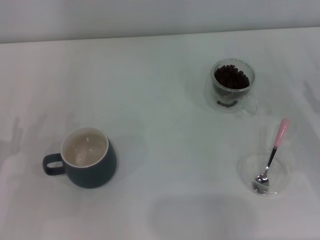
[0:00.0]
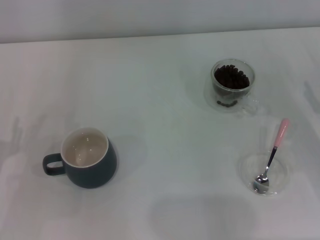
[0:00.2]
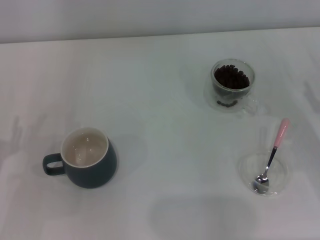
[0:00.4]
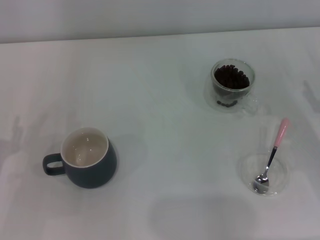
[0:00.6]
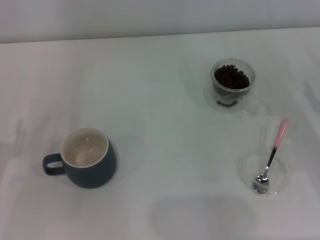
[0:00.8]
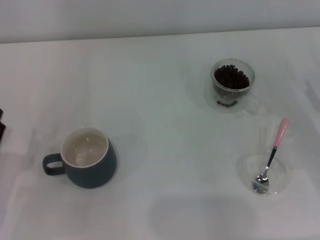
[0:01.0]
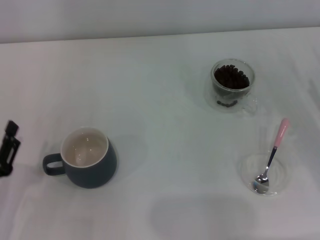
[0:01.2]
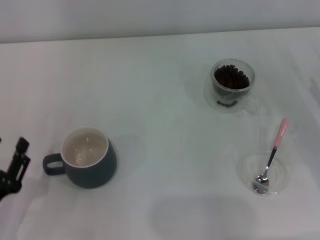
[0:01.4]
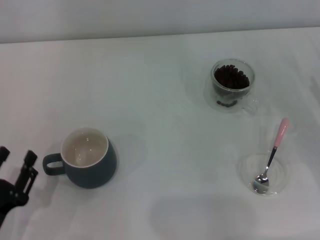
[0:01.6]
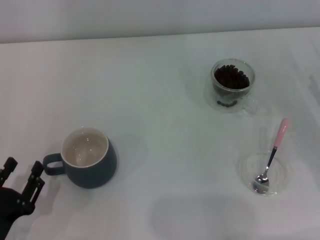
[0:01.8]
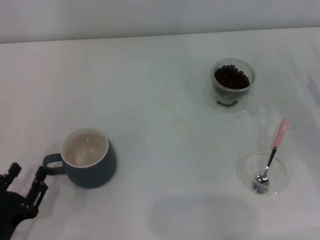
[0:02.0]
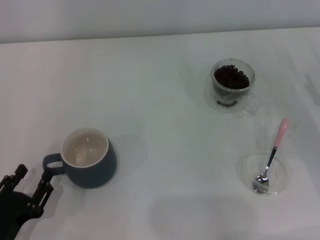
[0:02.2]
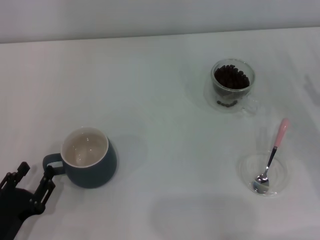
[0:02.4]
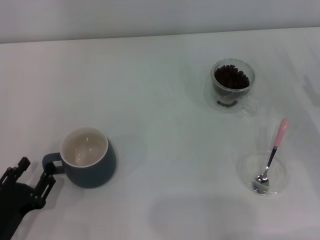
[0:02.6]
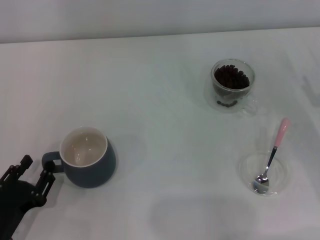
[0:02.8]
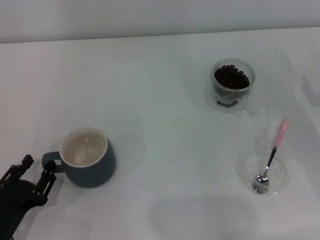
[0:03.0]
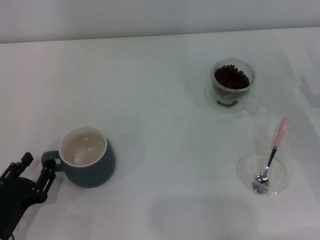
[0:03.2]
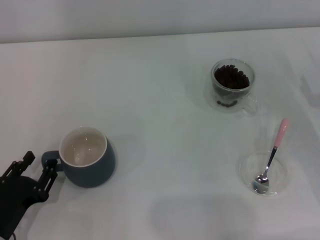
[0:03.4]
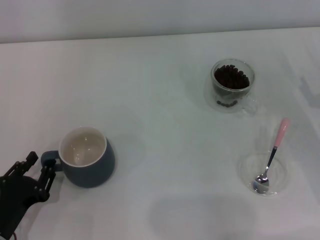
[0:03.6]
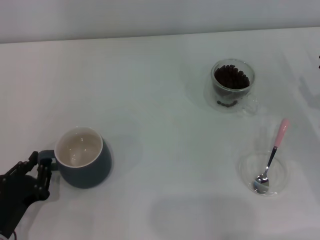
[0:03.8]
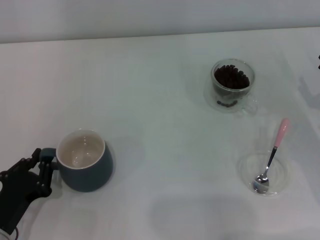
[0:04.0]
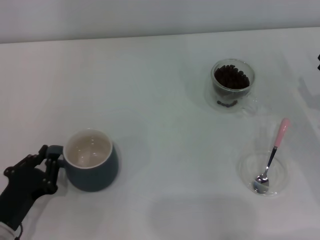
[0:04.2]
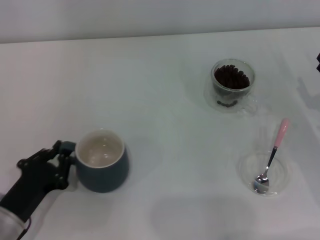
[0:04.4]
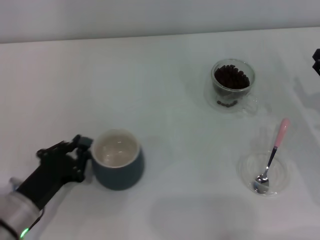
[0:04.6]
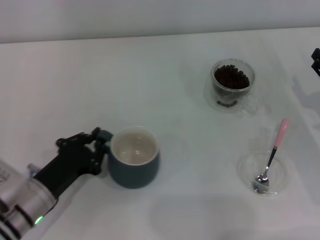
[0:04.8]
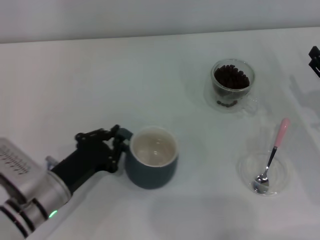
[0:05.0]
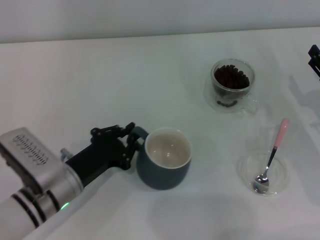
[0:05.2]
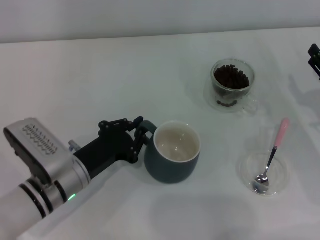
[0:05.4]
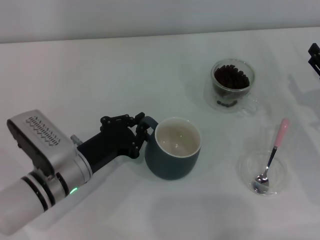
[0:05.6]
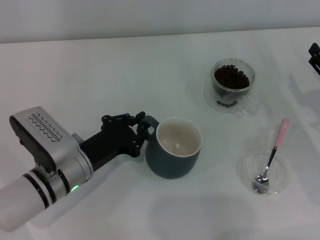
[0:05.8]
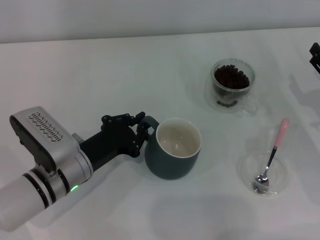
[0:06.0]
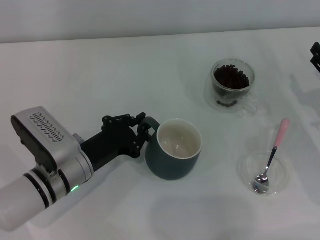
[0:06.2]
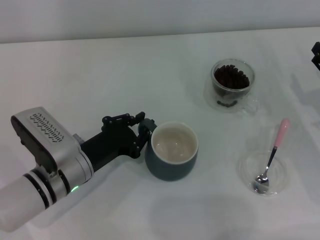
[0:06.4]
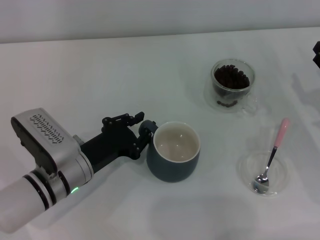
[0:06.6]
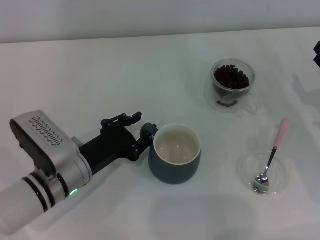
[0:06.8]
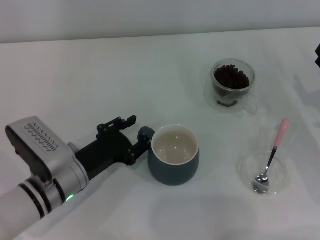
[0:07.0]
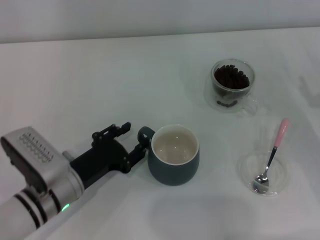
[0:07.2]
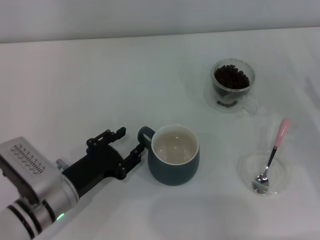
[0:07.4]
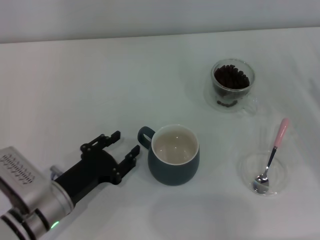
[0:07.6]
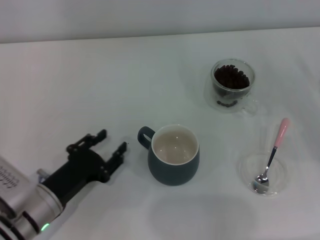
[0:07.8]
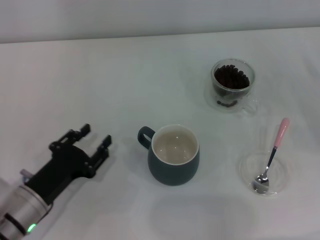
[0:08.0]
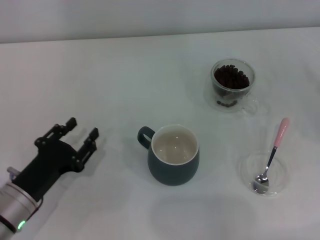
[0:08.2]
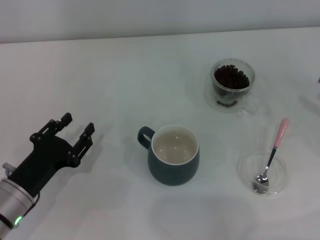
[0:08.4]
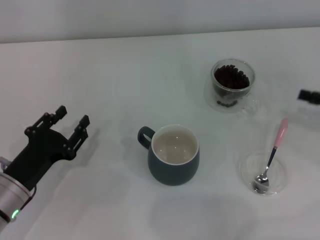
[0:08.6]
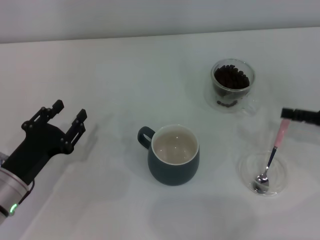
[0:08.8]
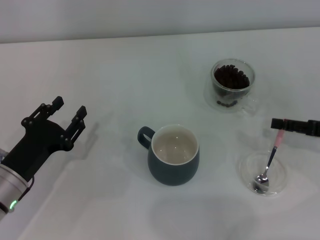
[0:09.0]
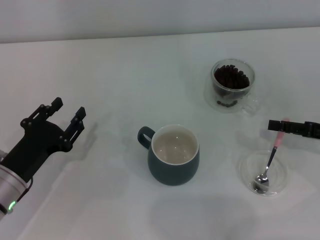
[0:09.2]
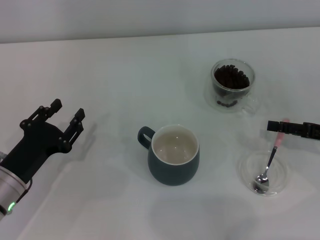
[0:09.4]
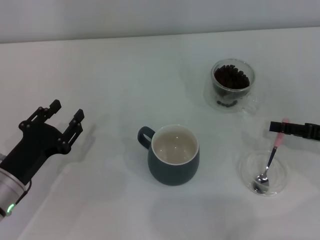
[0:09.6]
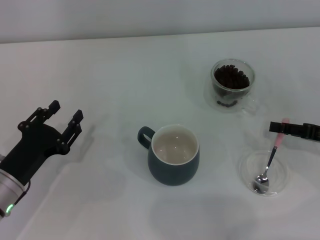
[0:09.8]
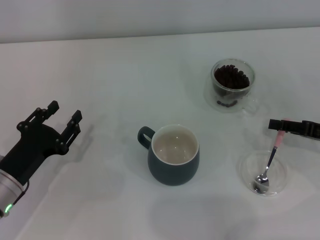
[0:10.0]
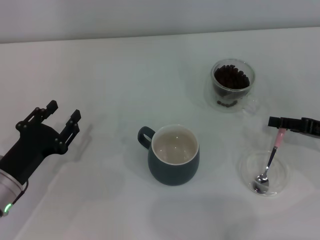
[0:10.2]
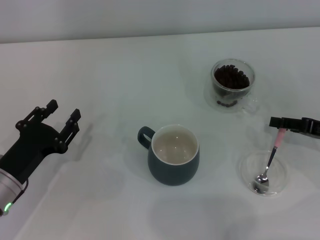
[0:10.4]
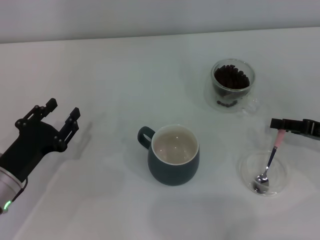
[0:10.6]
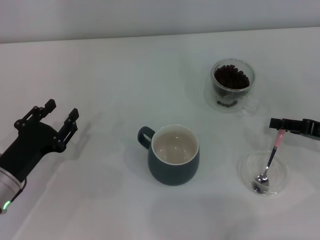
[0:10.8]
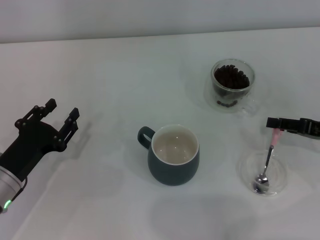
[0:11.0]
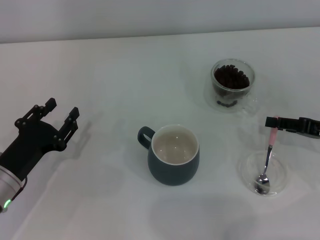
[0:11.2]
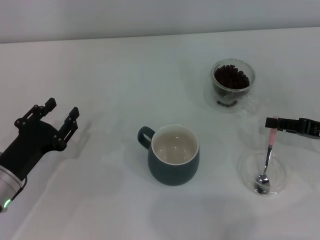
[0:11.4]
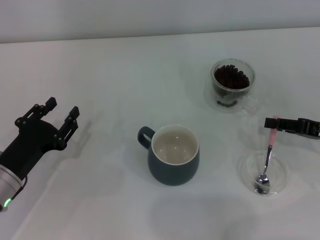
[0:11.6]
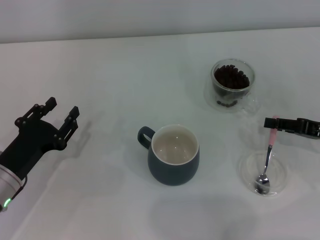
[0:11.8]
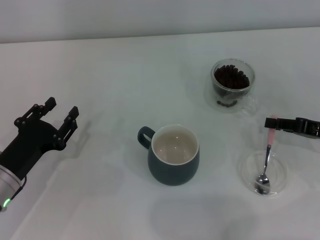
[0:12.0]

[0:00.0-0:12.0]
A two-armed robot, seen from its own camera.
Task of the whole recording: Use a pink spoon to take out the coffee beans from the glass and pour them into the gray cup.
Step, 0:00.0 to 0:07.6: Move the cup to the center of view with the left gripper.
0:00.0 to 0:01.6: The left gripper shifts approximately 10 cm backward.
0:01.6 to 0:03.0: The grippers move only a little.
0:03.0 to 0:04.4: The left gripper closes.
0:04.4 to 0:06.0: The left gripper is displaced to the right and forward by approximately 15 cm.
0:06.0 to 0:07.6: The left gripper moves about 5 cm, and opens up.
0:07.6 to 0:09.0: The left gripper heads to the left, covering some 5 cm.
0:10.4 to 0:12.0: The two grippers keep their place.

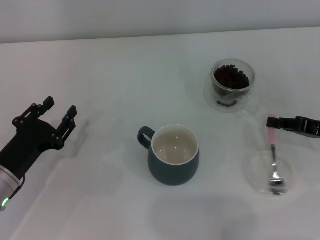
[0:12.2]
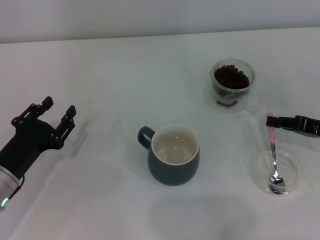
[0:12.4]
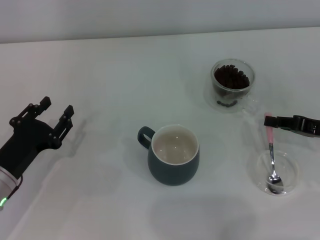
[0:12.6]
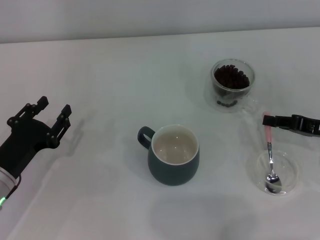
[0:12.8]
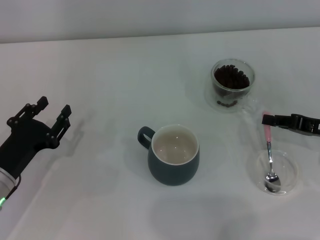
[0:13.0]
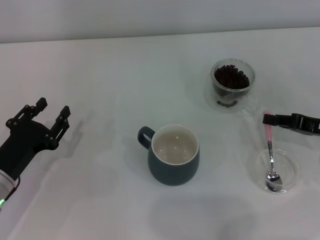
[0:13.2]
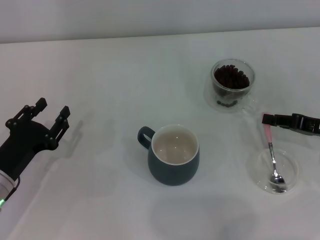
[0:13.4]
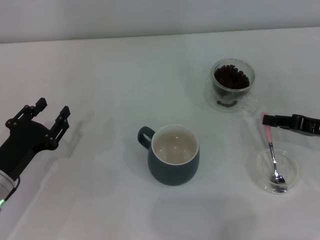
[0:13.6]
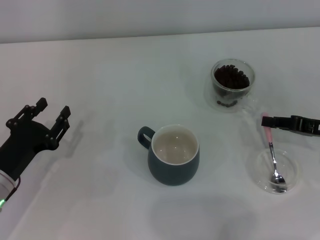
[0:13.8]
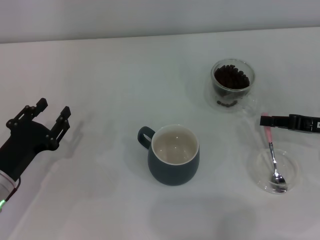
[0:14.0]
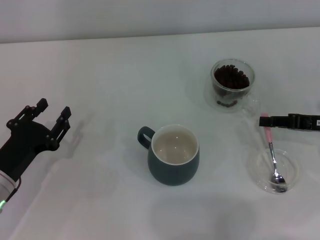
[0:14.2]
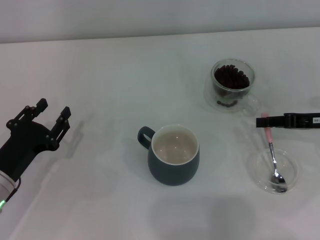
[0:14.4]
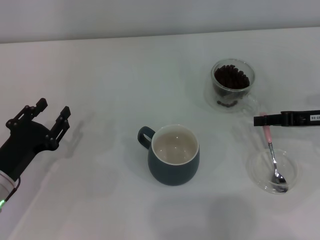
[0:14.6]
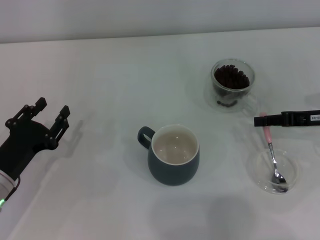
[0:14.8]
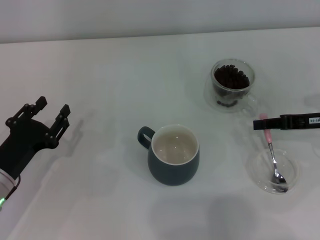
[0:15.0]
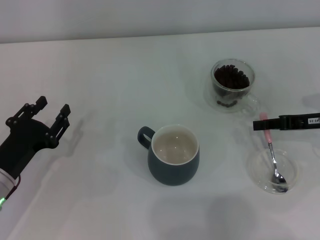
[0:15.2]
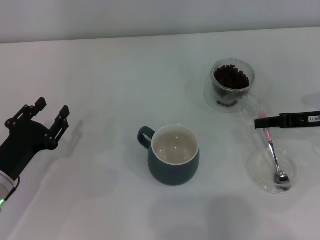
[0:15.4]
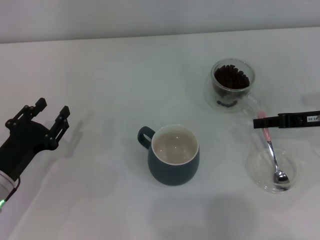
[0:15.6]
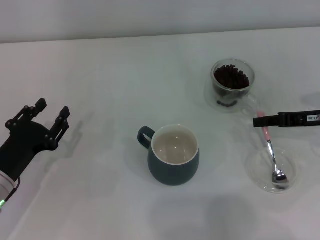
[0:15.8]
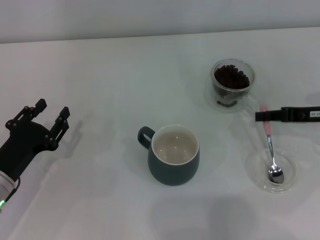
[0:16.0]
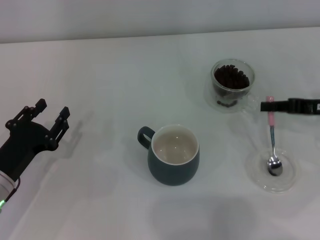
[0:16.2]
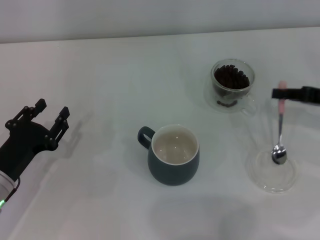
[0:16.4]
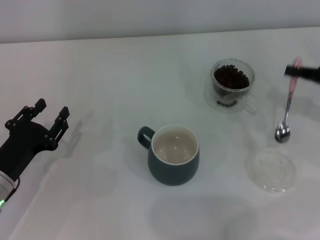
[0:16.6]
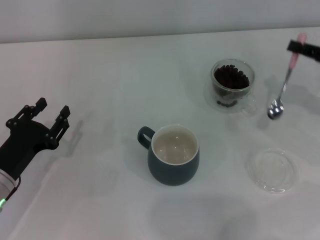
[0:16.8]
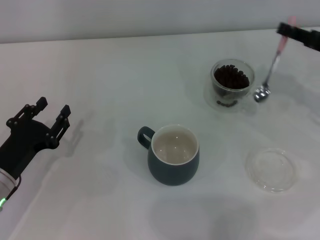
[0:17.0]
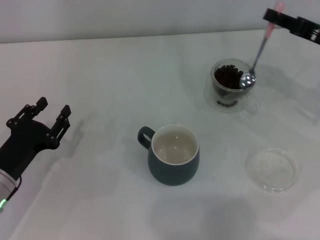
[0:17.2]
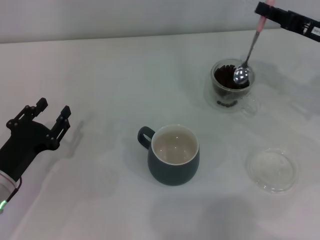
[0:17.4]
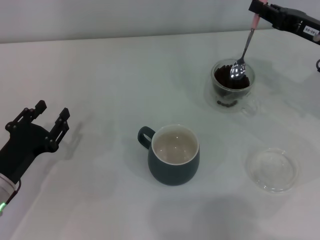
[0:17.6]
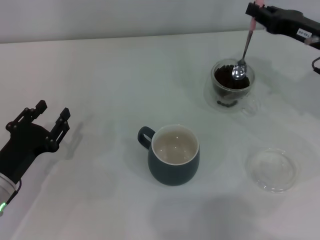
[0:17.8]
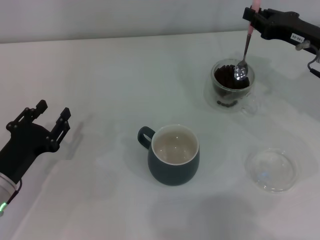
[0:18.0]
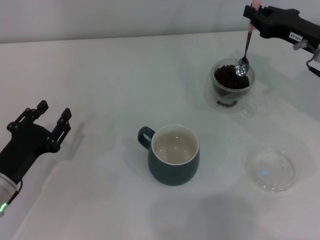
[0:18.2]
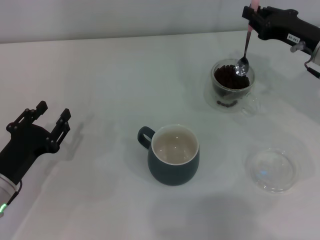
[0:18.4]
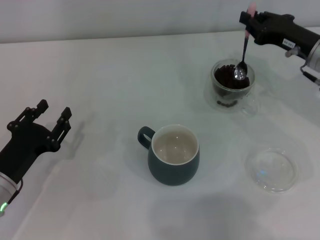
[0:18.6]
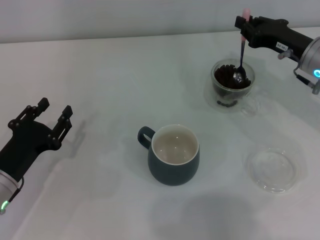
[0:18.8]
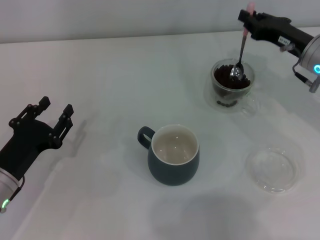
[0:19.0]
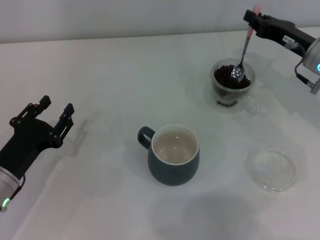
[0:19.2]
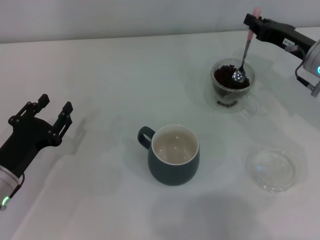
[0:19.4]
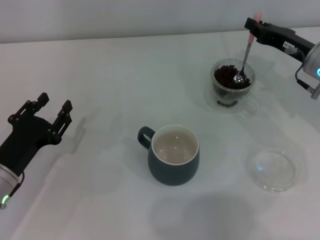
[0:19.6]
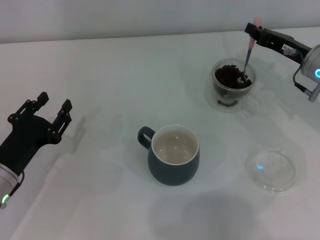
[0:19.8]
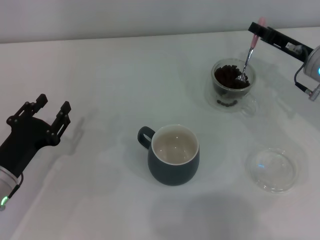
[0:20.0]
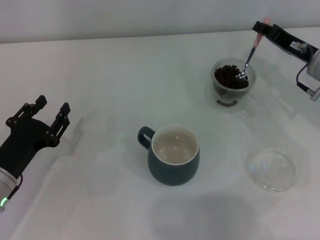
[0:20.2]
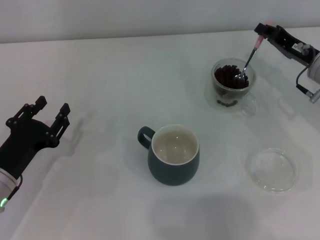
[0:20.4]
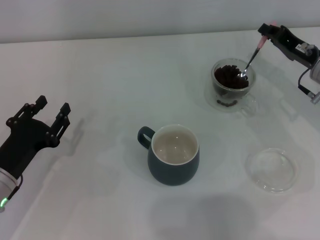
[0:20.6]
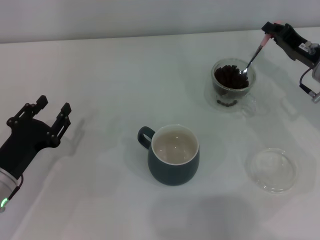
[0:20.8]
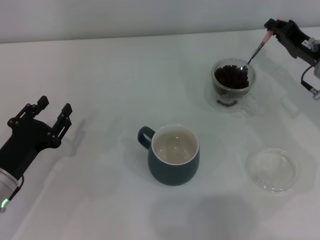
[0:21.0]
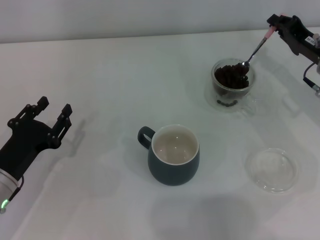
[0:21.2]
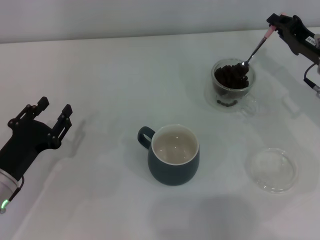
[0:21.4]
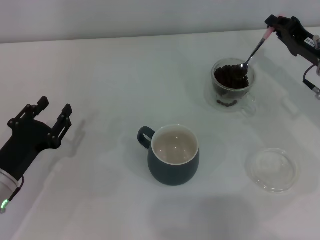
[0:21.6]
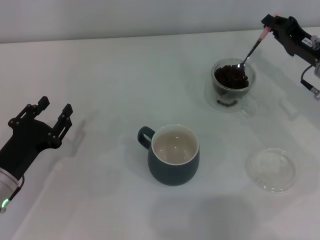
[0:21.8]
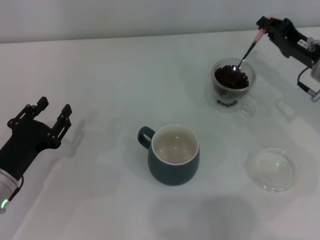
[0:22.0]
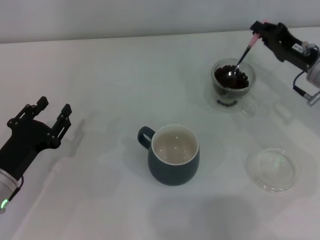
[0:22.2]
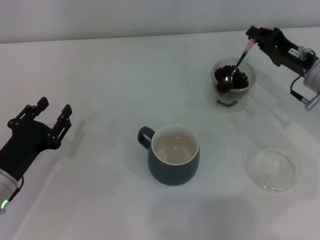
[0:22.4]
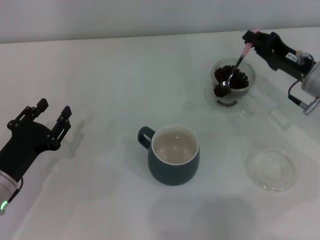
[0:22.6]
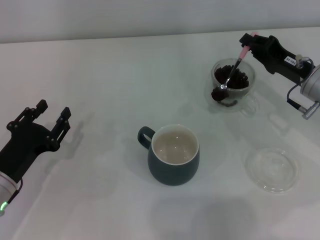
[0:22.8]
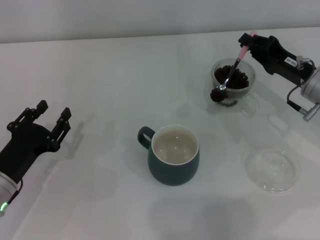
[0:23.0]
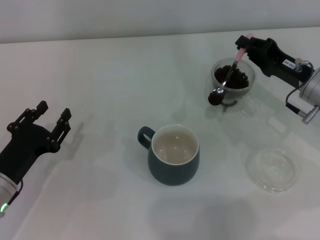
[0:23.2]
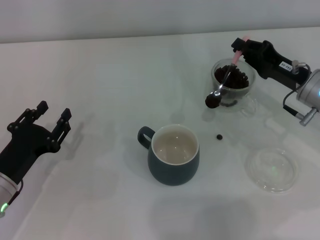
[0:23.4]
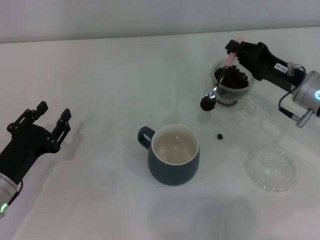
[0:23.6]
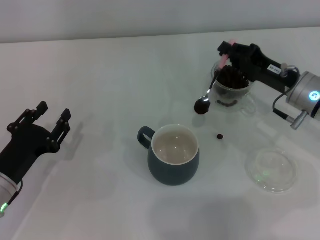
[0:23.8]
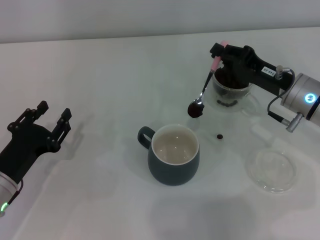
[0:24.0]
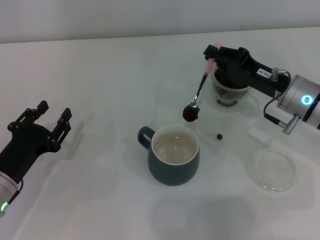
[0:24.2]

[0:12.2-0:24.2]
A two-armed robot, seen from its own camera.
Task of the whole recording: Use a pink spoon to take out the coffee beans from the glass and pour them into the gray cup.
Step, 0:12.2 to 0:16.4: Pick up the spoon with the right gripper.
0:12.2 to 0:13.8: Both grippers stay about where they are.
0:13.8 to 0:15.2: There are only small adjustments of the grippers.
0:15.2 to 0:16.6: The right gripper moves some 5 cm.
0:16.6 to 0:18.2: The right gripper is displaced to the left and forward by about 10 cm.
0:21.2 to 0:22.6: There are only small adjustments of the grippers.
0:22.6 to 0:24.2: There are only small adjustments of the grippers.
